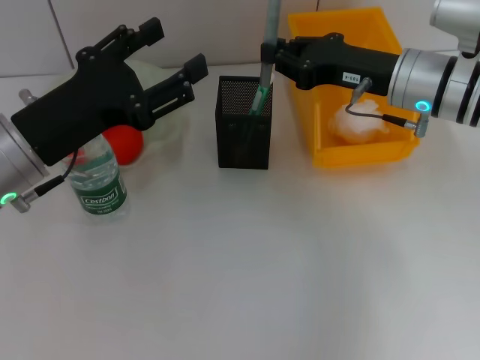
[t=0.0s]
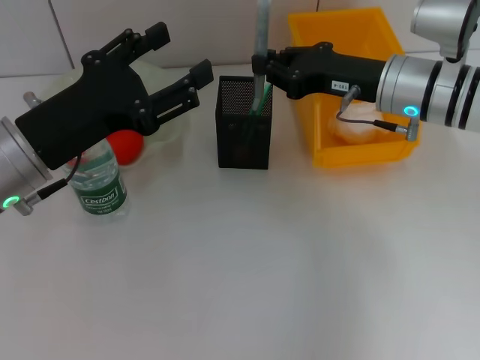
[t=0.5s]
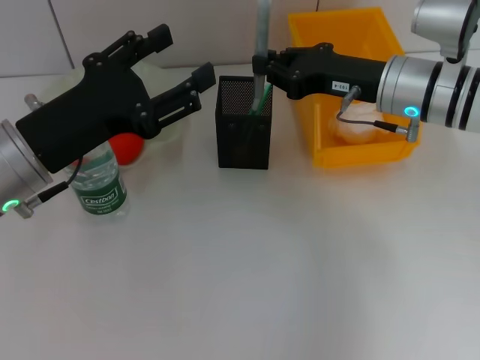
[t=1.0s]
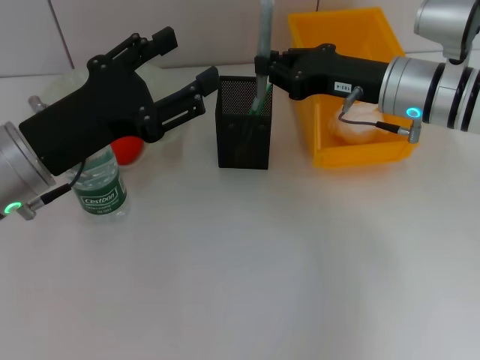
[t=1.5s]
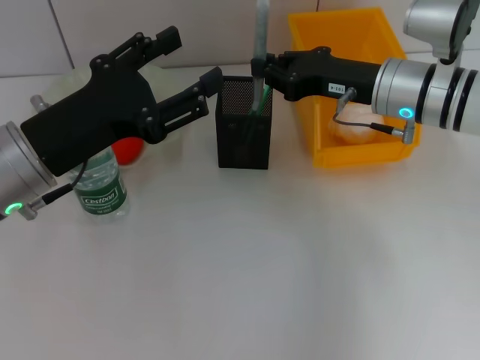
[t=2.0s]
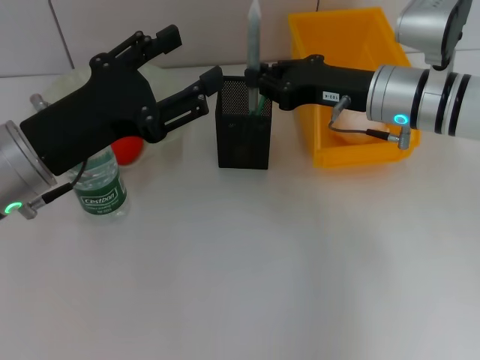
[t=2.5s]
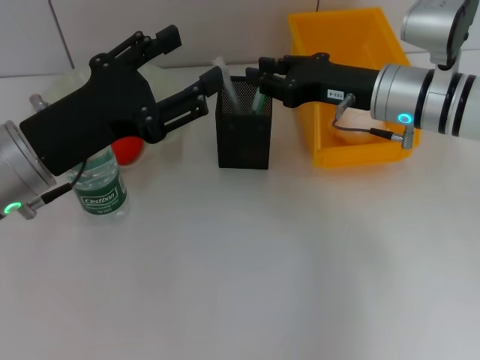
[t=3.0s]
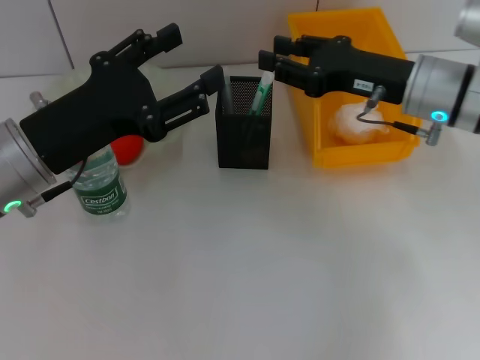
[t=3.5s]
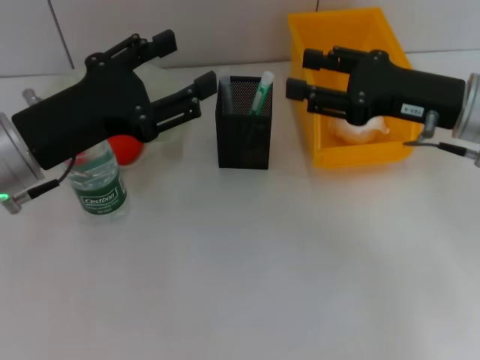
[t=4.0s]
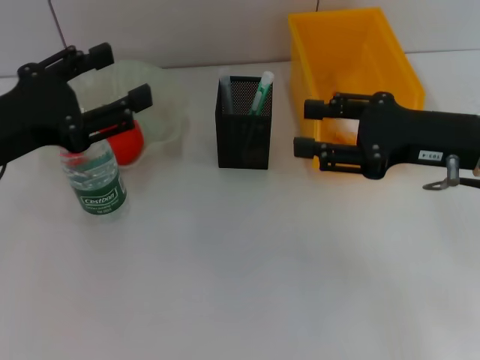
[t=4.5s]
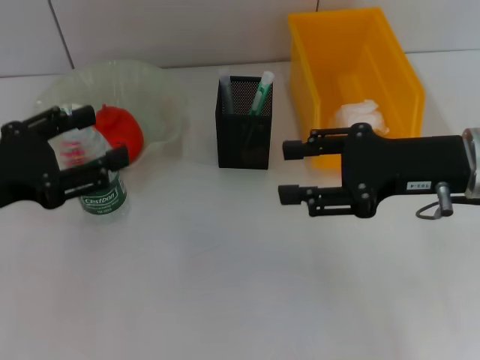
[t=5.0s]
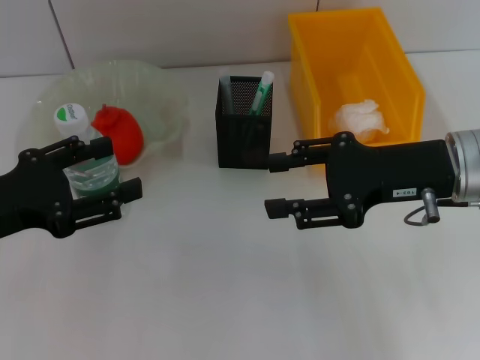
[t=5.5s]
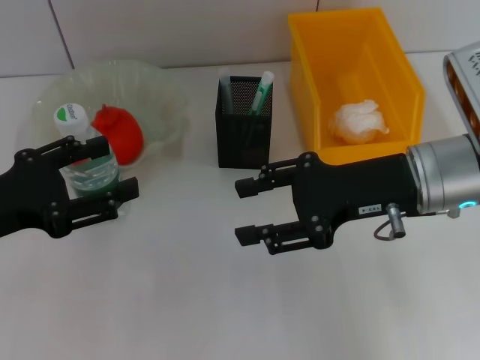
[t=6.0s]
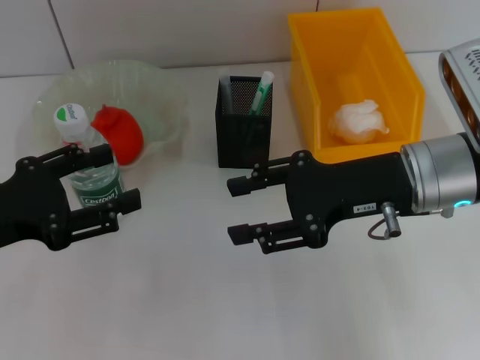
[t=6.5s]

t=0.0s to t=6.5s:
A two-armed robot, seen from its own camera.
Step, t=0.0s to t=3.0s: Place the gray glue into the pen holder with the right hand.
t=0.0s to t=2.0s: The grippers make only small movements.
t=2.0s to t=4.5s: The left gripper moves to the left, about 5 cm. The right gripper is displaced backward and to the right by approximately 10 cm, and opens up.
t=4.5s to t=6.5s: The right gripper shifts roughly 5 cm to the left; the left gripper ends up roughly 5 cm from where it was.
